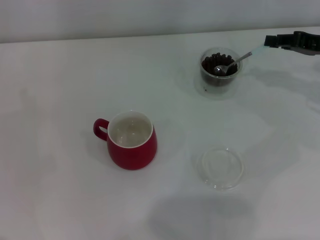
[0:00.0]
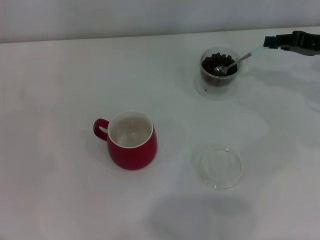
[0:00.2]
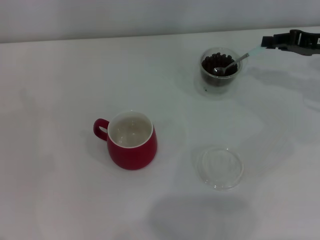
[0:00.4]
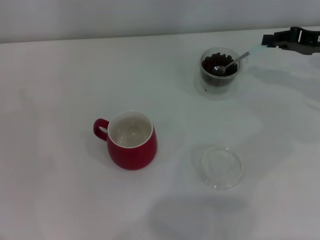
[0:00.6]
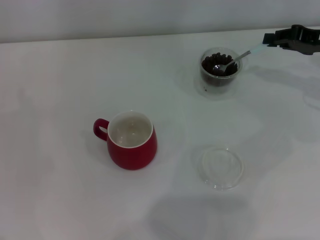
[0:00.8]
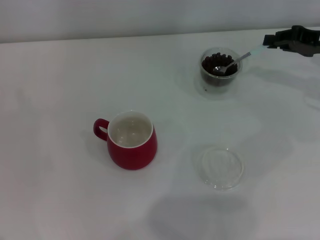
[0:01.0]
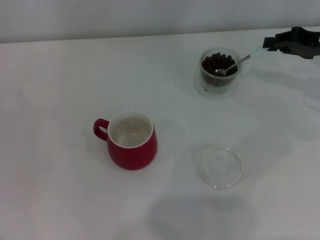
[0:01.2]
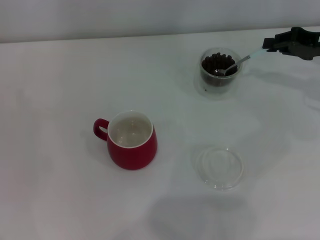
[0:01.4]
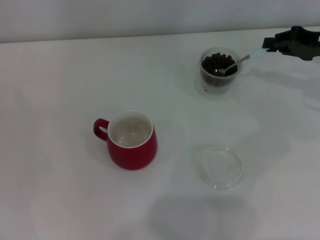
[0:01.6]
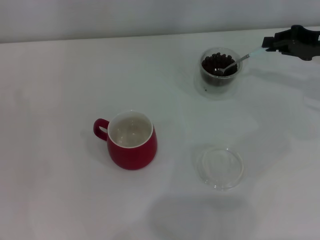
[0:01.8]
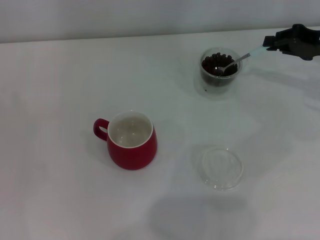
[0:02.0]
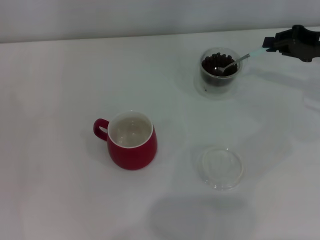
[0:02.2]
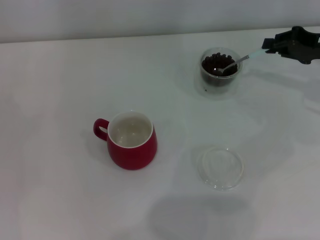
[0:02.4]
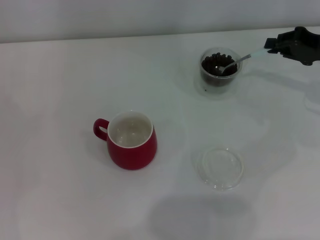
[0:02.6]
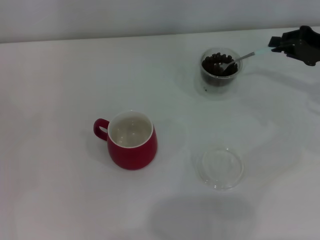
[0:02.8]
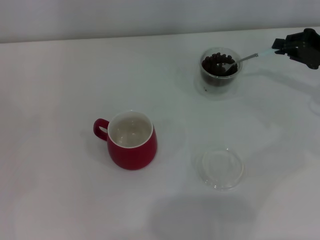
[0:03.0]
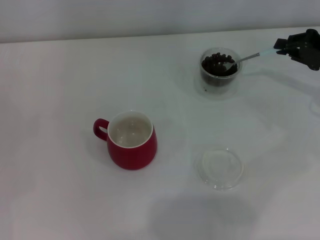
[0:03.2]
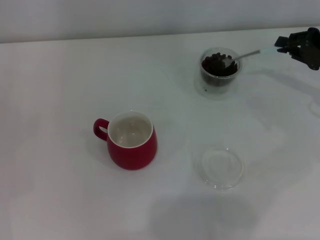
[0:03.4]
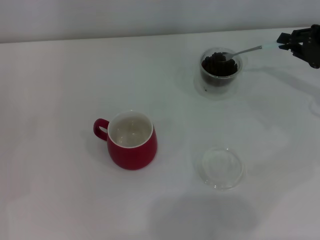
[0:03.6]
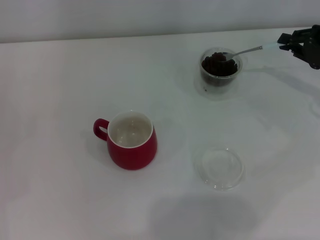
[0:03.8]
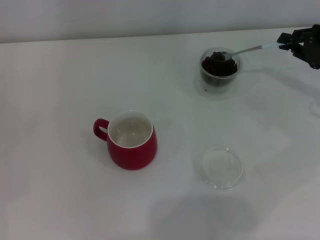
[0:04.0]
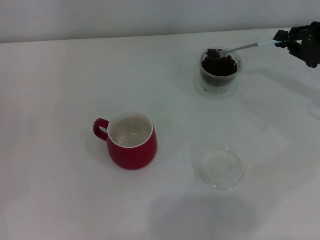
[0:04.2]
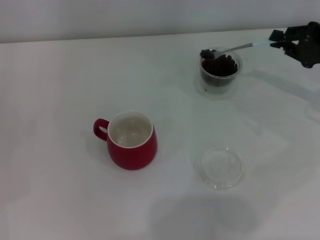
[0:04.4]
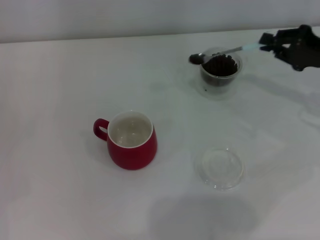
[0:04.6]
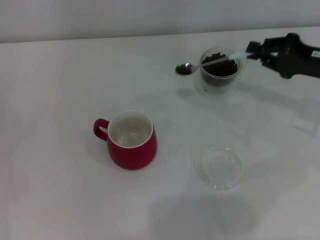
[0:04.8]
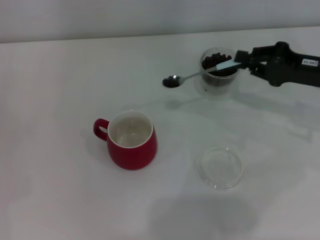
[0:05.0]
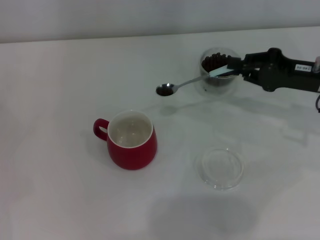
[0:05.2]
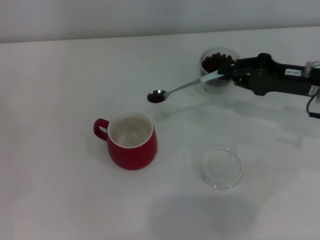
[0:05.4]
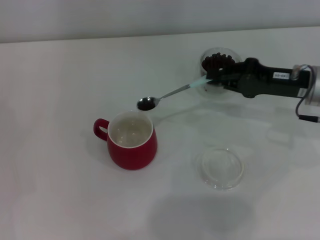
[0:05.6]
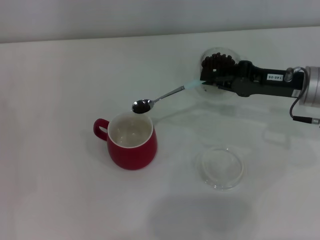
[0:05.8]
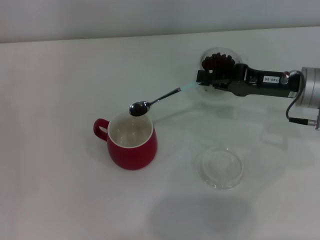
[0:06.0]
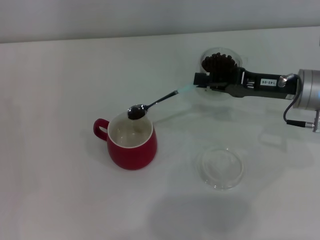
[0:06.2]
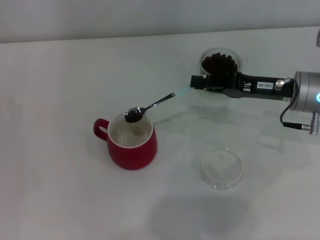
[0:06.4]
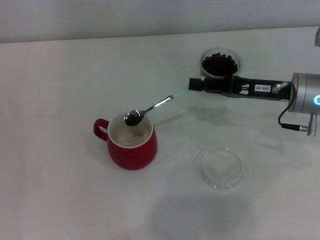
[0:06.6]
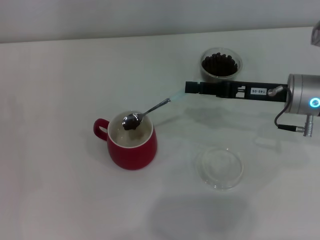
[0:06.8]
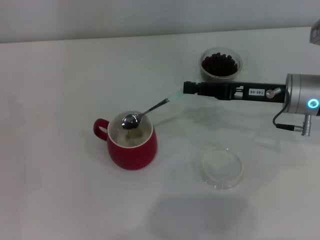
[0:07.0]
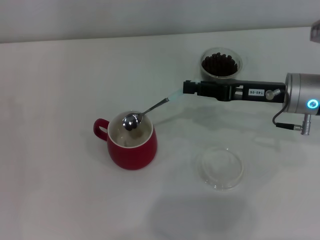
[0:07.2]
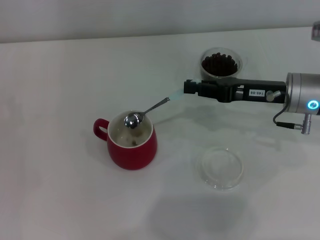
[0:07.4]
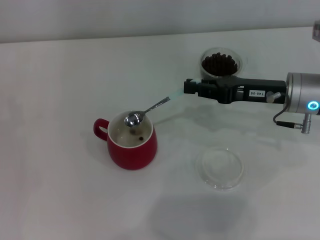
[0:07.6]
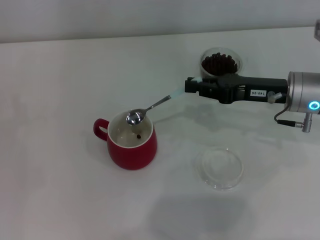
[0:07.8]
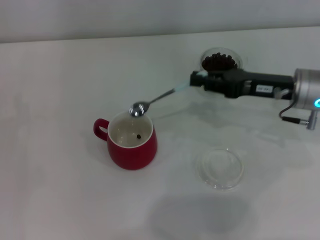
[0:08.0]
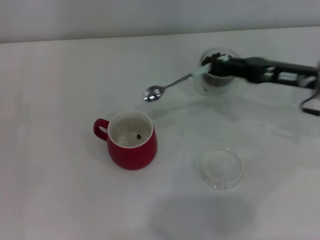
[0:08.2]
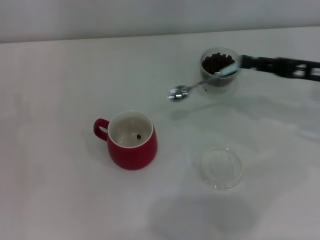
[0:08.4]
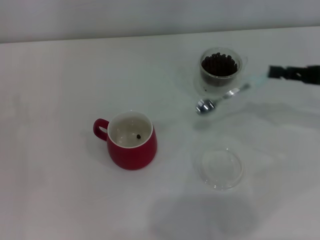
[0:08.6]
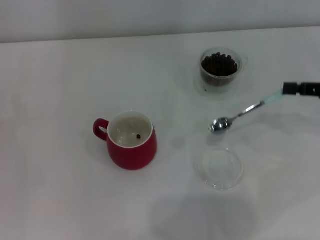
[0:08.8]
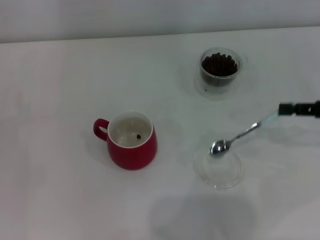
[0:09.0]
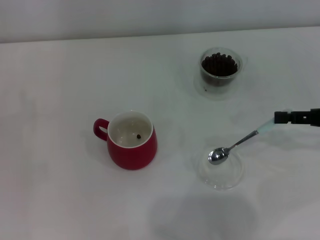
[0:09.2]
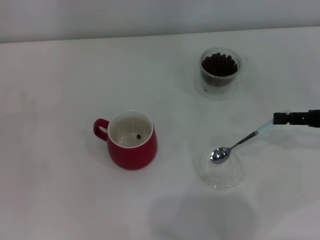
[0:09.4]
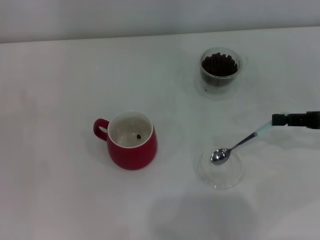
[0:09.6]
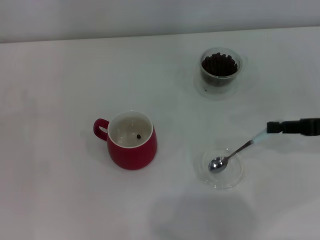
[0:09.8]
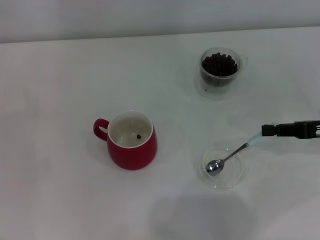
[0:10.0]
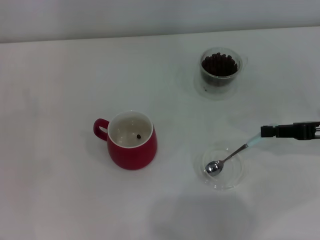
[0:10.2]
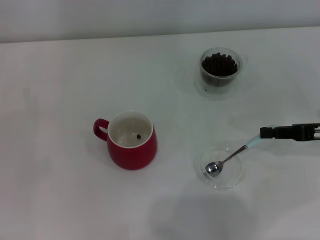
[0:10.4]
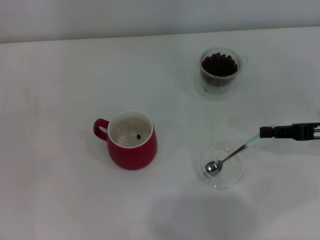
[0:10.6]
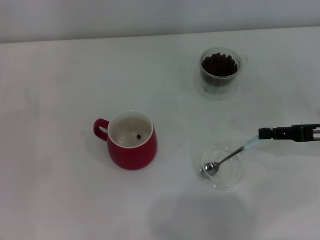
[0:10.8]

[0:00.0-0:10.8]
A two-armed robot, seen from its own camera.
Task of the whole recording: Use a blue spoon to take out the coffee beans from the glass and pour them into the red cup.
Step, 0.0 to 7.6 s: Scoop a spoonful of beans into the cup with the right gripper.
0.0 to 1.6 s: The grippers move only a little.
1.6 to 3.0 s: The grippers make only small movements.
3.0 to 4.6 s: The grippers move only a little.
4.6 to 6.2 s: The right gripper heads to the left, covering some 10 cm.
7.8 to 9.2 s: The right gripper goes roughly 15 cm to the right and backward.
9.2 to 10.8 s: There are only small adjustments of the grippers.

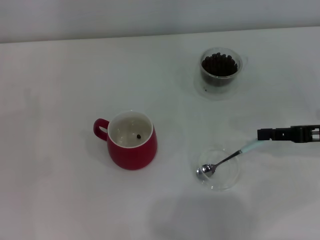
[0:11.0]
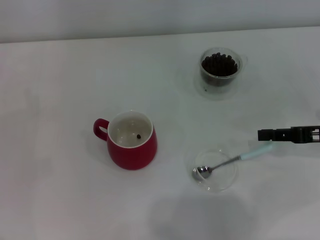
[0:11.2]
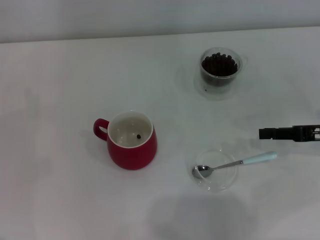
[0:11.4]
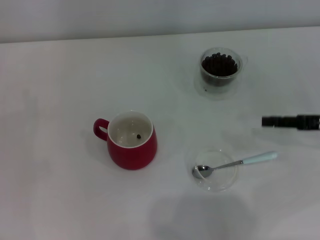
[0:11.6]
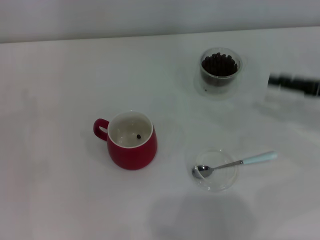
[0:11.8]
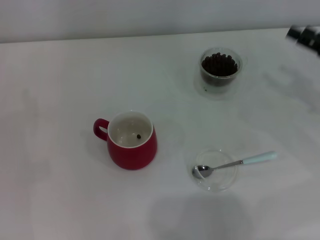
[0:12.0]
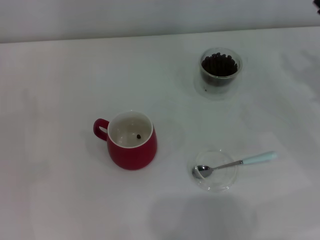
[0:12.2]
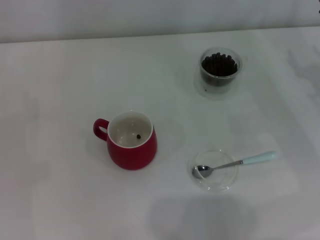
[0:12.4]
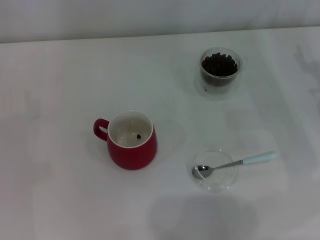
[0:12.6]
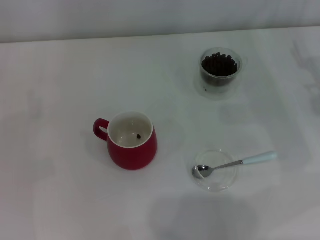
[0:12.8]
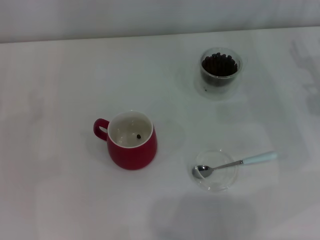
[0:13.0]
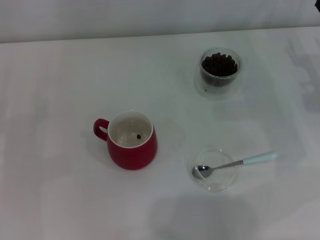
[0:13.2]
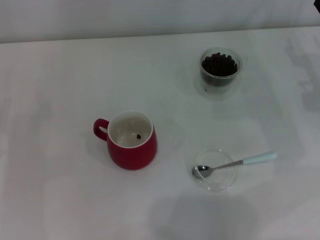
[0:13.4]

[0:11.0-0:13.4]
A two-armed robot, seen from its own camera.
Task of the whole recording: Use a blue spoon to take out the coffee beans from the glass and pour them into the red cup.
11.0 to 12.2 s: The right gripper opens.

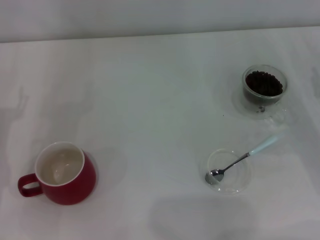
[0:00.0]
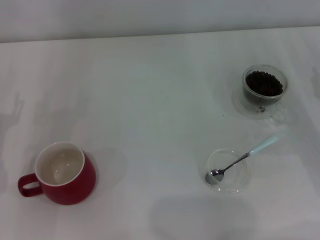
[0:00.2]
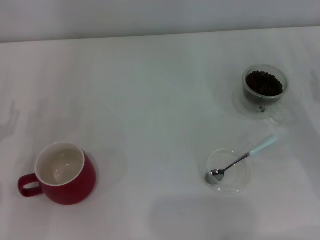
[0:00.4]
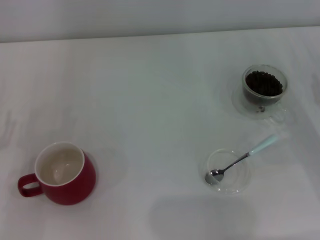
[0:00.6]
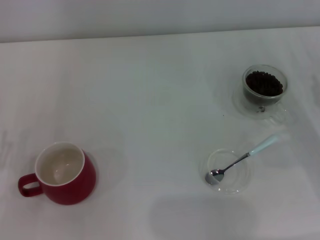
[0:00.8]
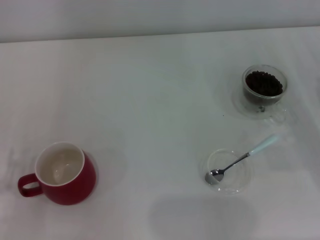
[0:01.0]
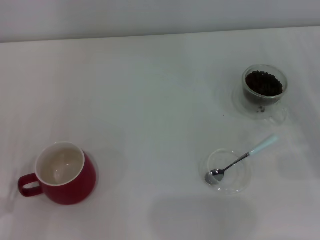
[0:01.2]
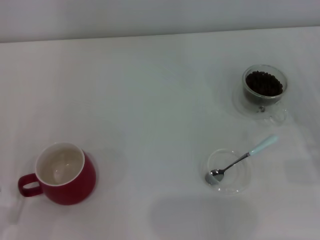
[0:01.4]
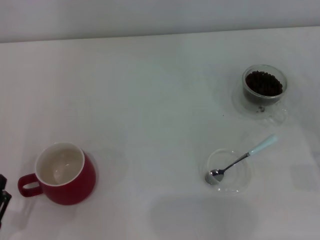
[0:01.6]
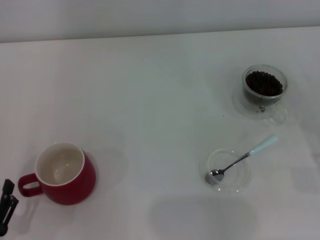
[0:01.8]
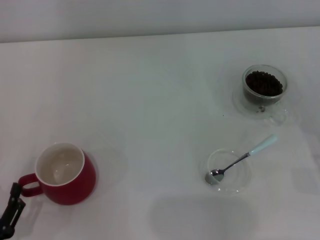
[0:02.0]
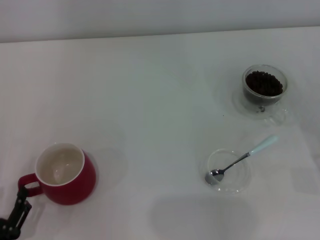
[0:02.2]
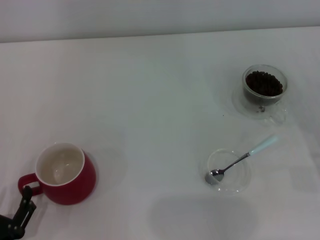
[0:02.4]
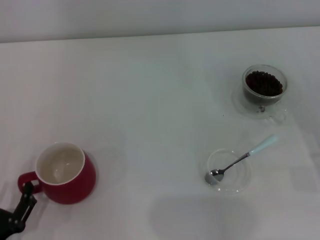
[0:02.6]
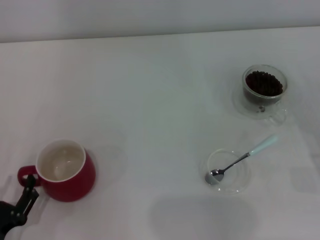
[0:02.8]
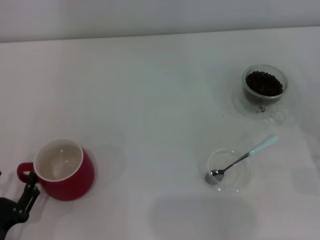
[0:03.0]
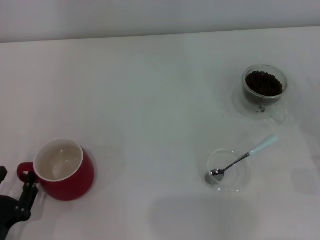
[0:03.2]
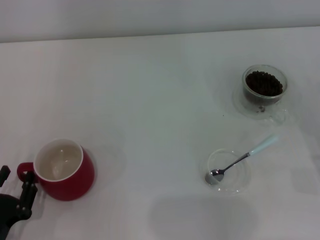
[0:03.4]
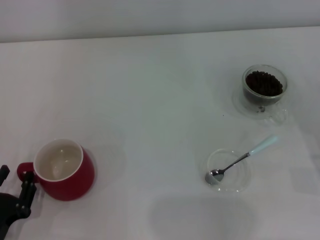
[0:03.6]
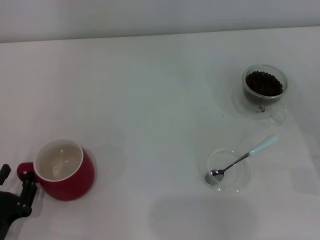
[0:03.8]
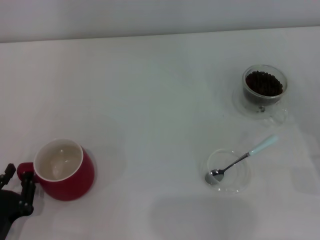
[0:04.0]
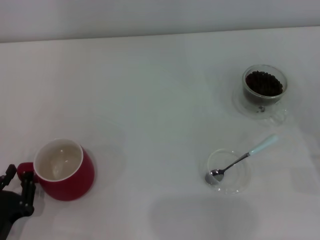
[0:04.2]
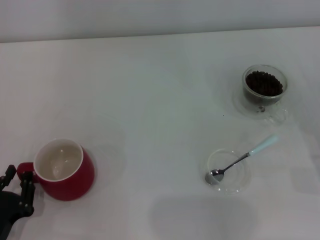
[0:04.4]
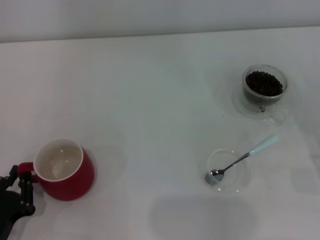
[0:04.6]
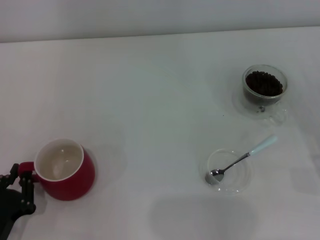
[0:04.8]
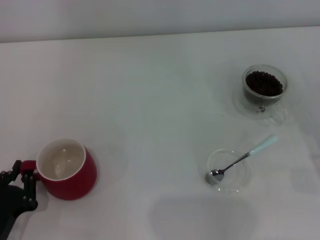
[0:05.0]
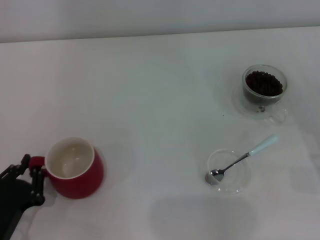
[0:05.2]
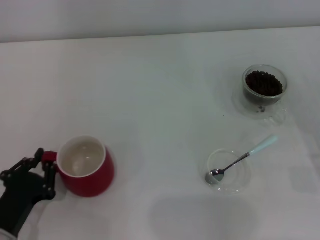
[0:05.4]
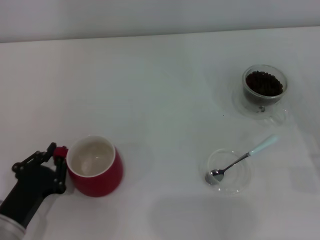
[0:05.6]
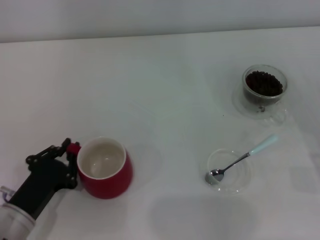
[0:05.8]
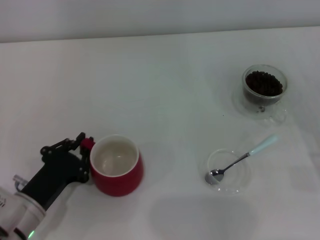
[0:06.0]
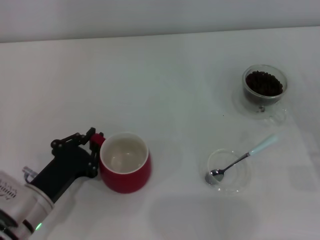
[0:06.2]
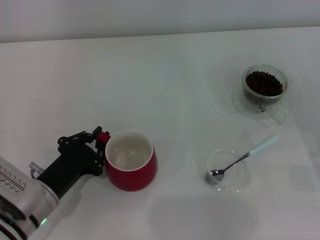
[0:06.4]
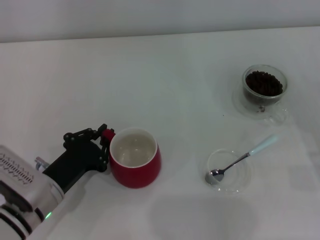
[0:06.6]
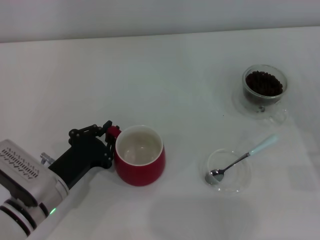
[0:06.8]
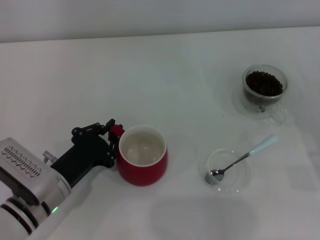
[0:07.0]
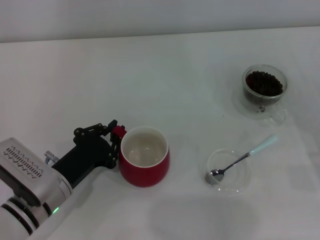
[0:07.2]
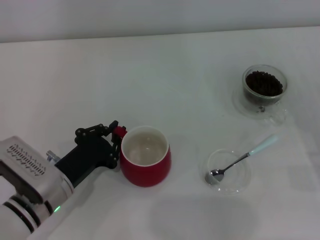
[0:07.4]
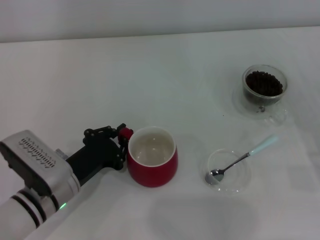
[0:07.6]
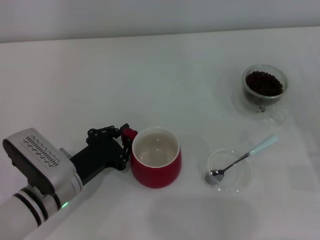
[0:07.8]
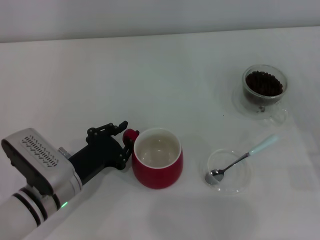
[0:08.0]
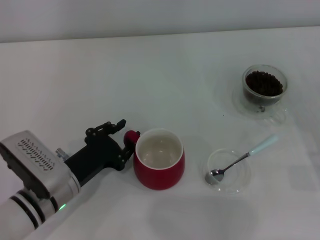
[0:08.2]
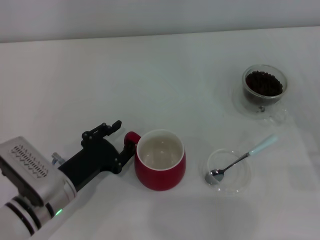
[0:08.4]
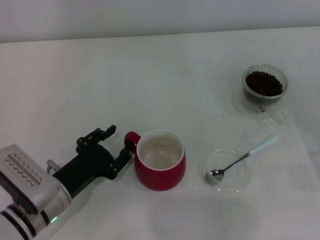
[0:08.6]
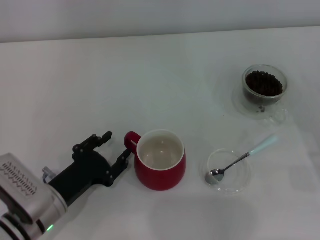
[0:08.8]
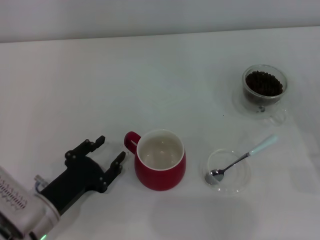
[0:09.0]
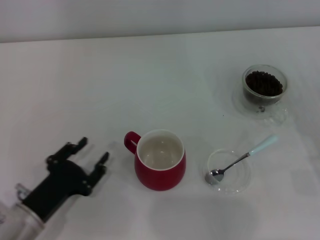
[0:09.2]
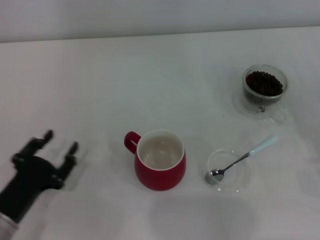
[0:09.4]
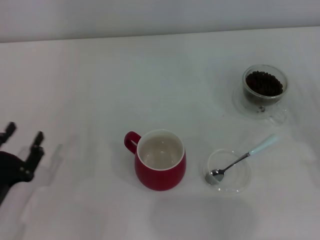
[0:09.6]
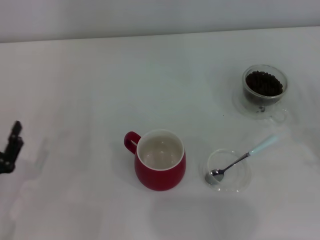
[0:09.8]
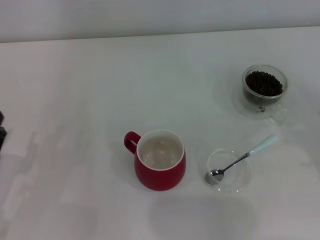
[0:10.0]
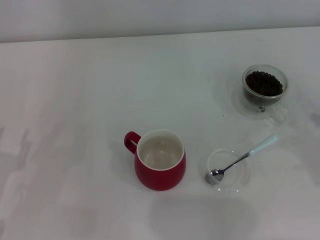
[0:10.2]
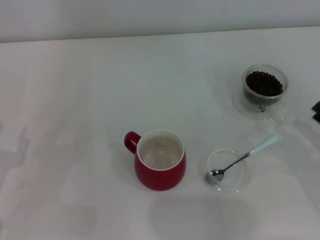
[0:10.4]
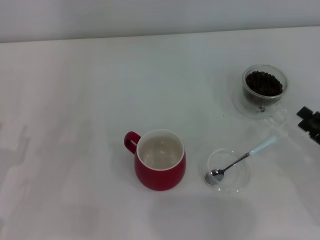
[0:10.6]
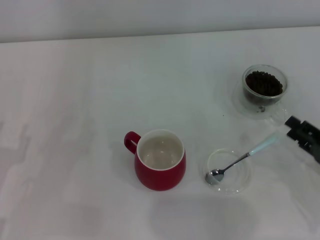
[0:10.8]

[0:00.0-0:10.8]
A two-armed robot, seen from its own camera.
Task of the whole recording: Use a blue spoon to take out the coffee beans from the glass and pour them into the red cup.
Step, 0.0 to 9.2 s: Move the cup to the center of view with the left gripper.
0.0 to 1.6 s: The left gripper is displaced backward by approximately 20 cm.
1.6 to 3.0 s: There are only small adjustments of the grippers.
3.0 to 4.6 s: The left gripper closes its fingers.
4.6 to 6.2 s: The left gripper shifts about 10 cm forward and to the right.
6.2 to 7.8 s: The left gripper shifts by about 5 cm.
7.8 to 9.2 s: The left gripper moves backward, some 5 cm, and opens its fingers.
9.2 to 10.8 s: The right gripper moves some 5 cm. The left gripper shifts roughly 10 cm to the left.
